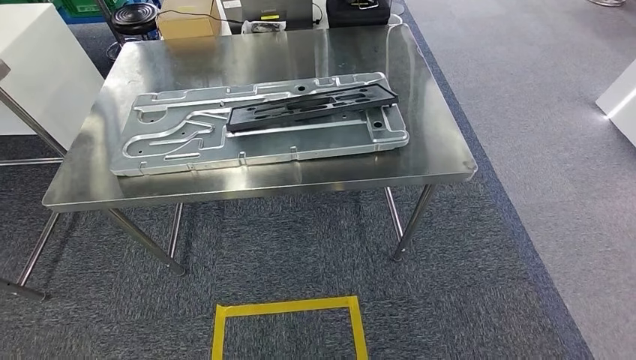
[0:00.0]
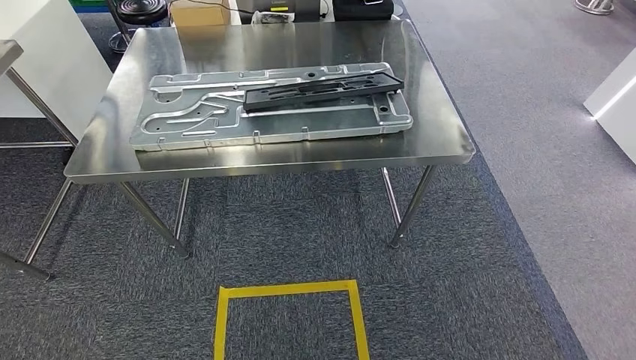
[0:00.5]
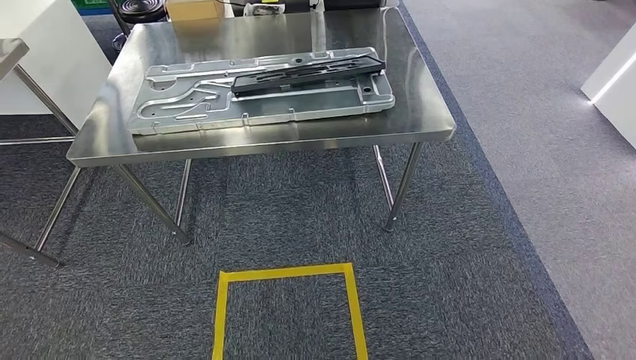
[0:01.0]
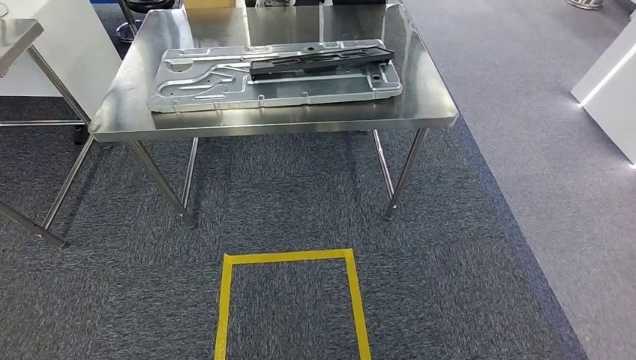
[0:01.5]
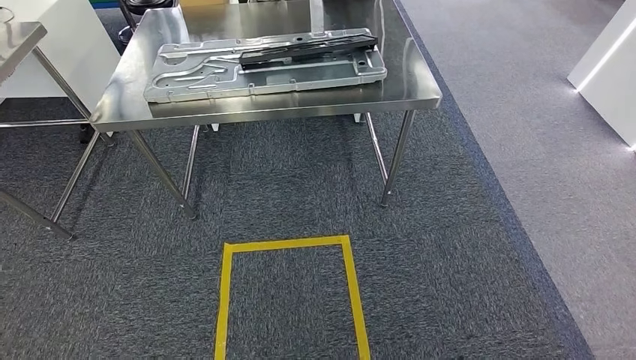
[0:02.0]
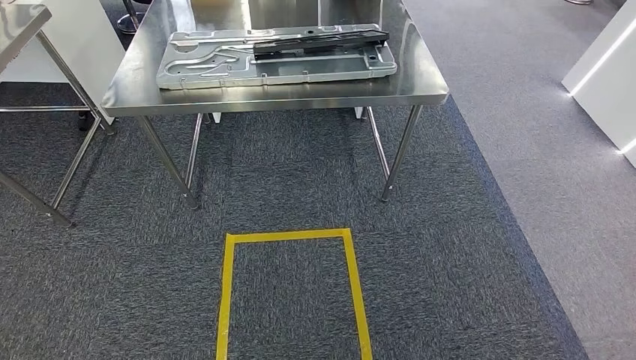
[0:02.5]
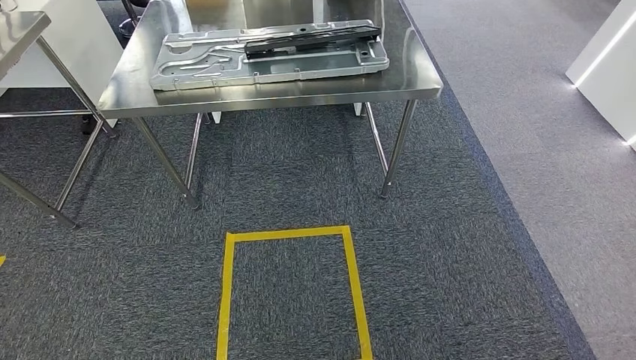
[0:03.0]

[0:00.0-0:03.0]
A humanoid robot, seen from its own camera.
Step, 0:00.0 to 0:03.0: Return to the initial position at the shelf.
0:01.5 to 0:03.0: The hands stay close to where they were, moving slightly.

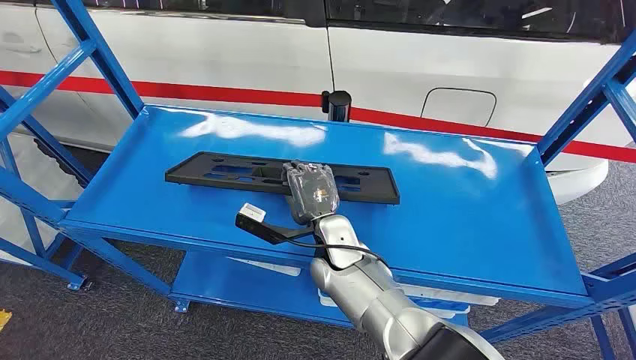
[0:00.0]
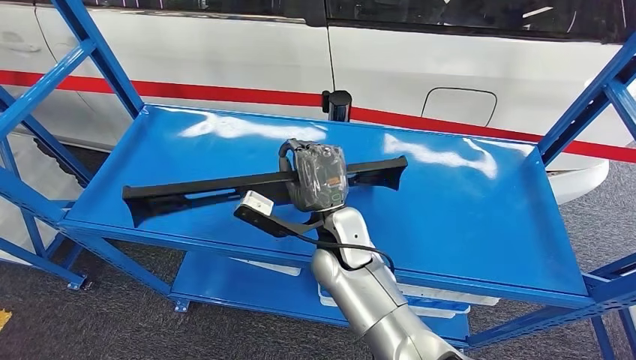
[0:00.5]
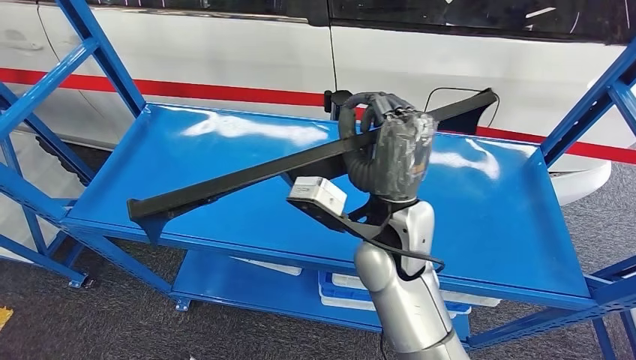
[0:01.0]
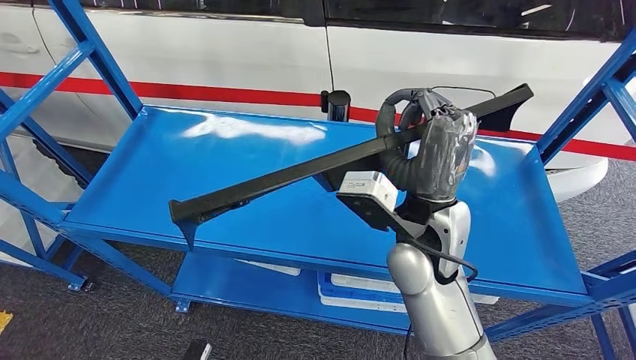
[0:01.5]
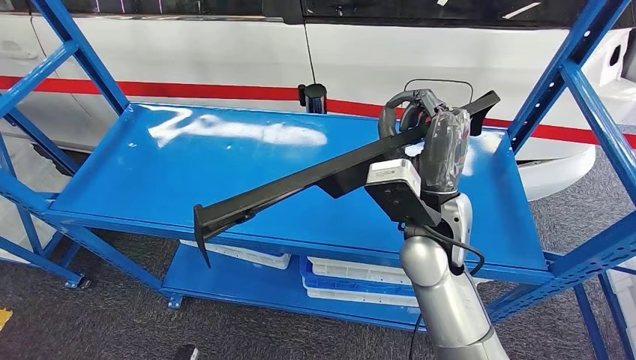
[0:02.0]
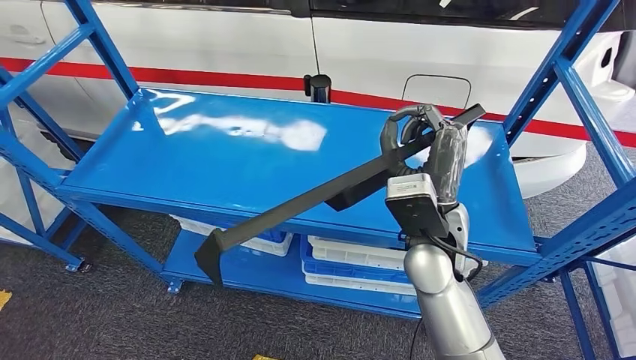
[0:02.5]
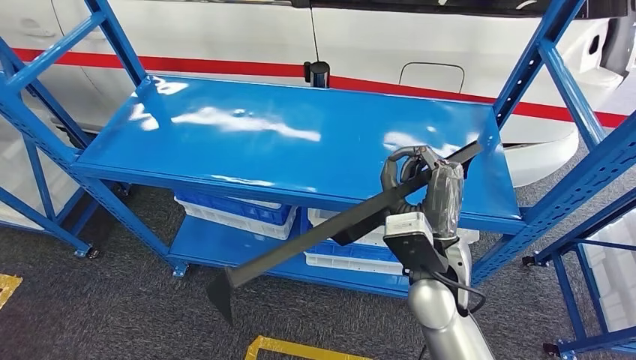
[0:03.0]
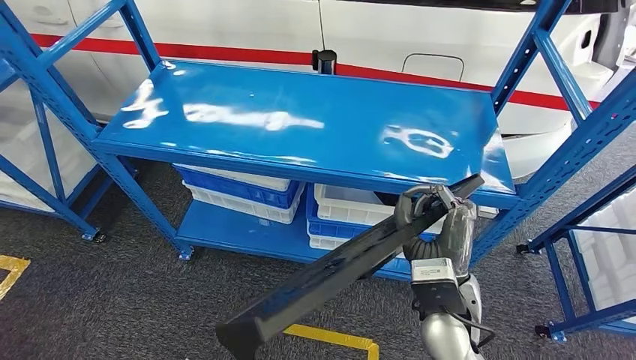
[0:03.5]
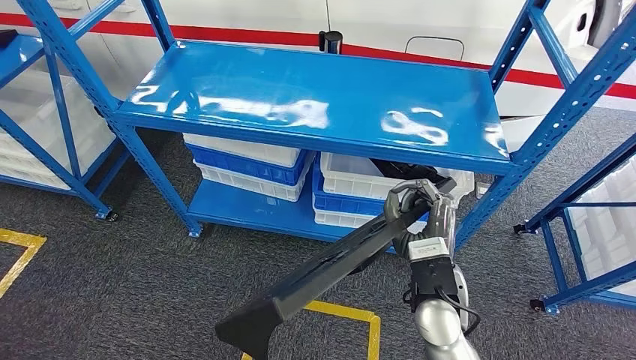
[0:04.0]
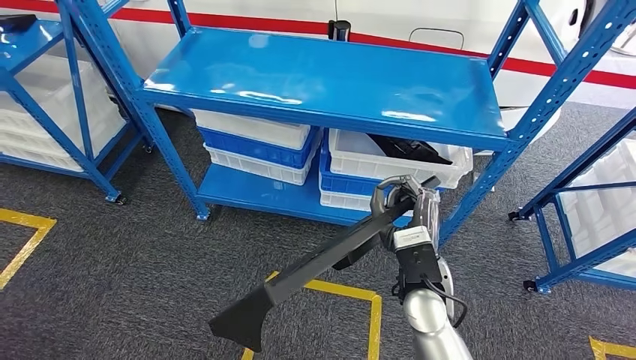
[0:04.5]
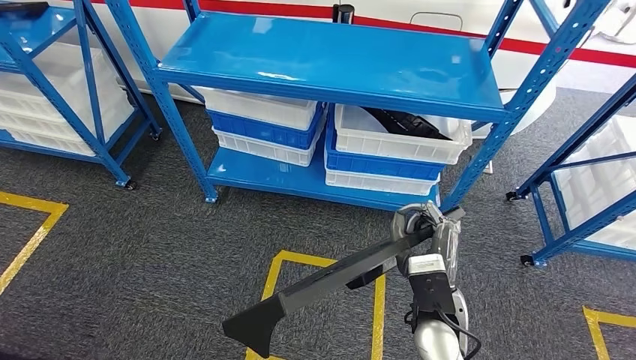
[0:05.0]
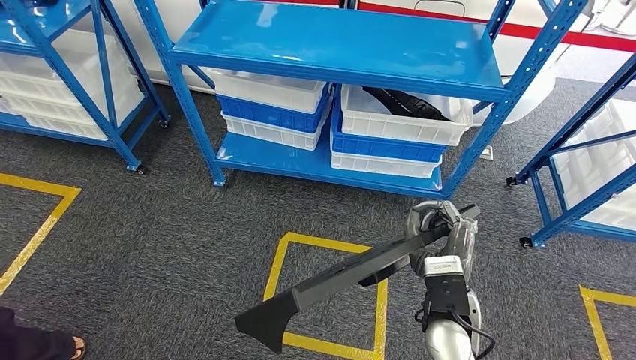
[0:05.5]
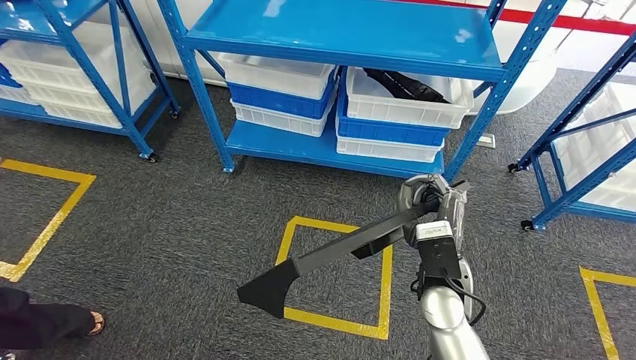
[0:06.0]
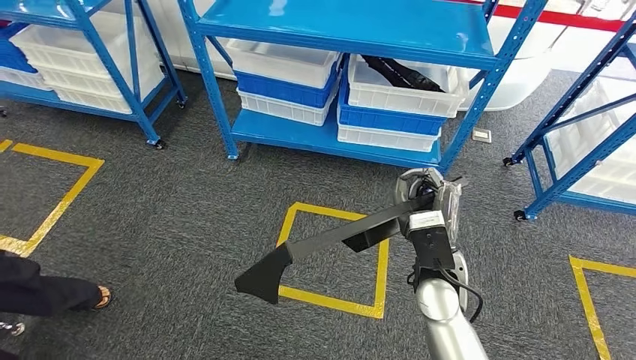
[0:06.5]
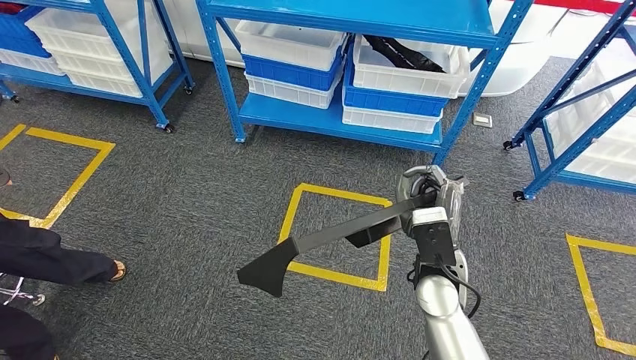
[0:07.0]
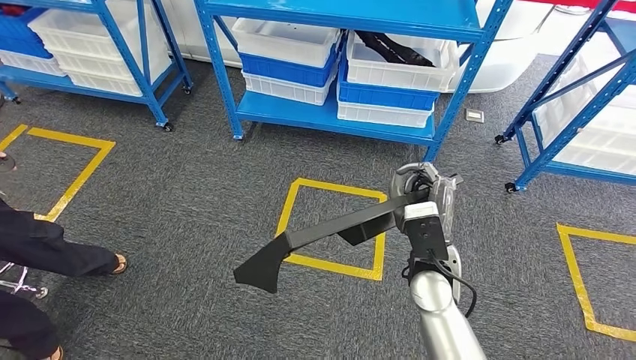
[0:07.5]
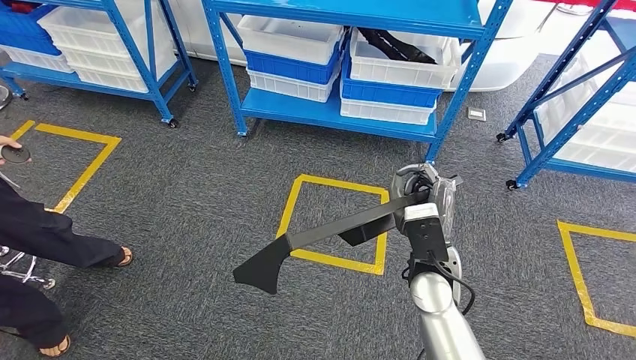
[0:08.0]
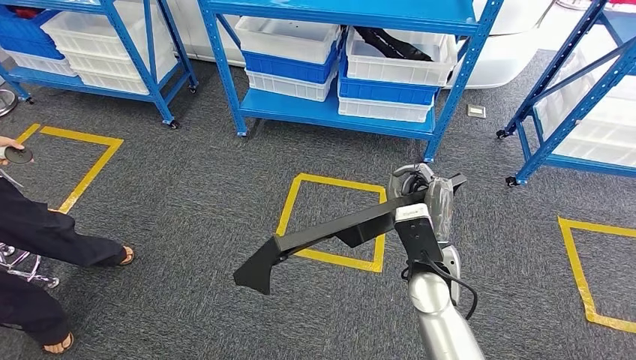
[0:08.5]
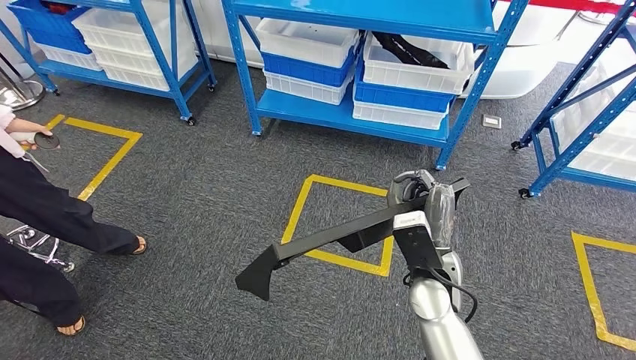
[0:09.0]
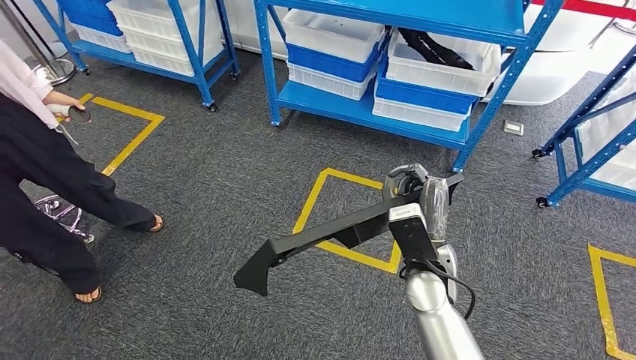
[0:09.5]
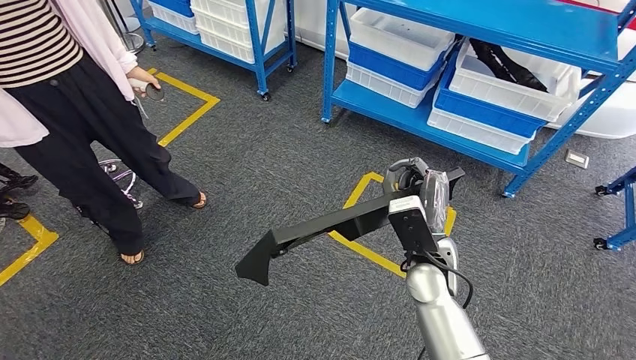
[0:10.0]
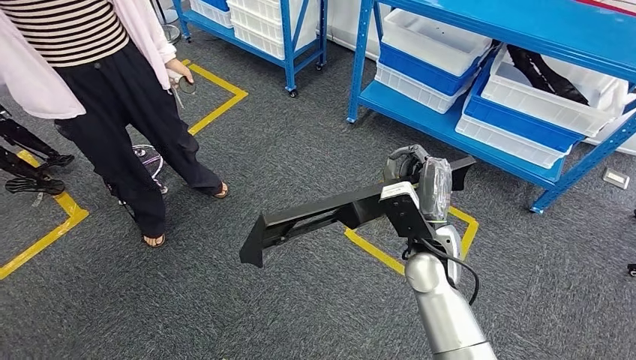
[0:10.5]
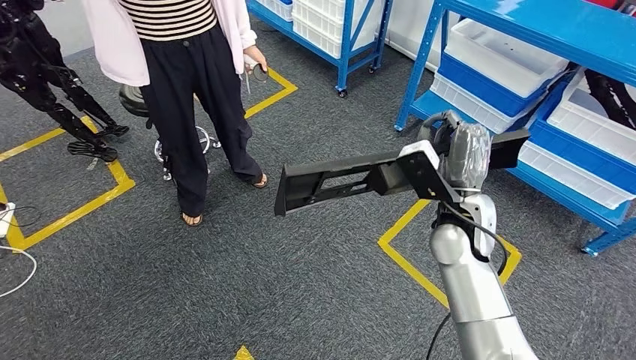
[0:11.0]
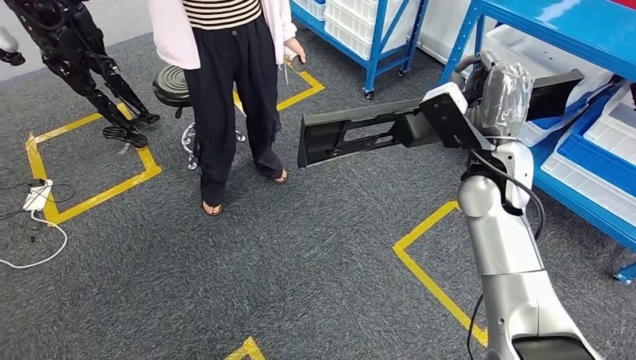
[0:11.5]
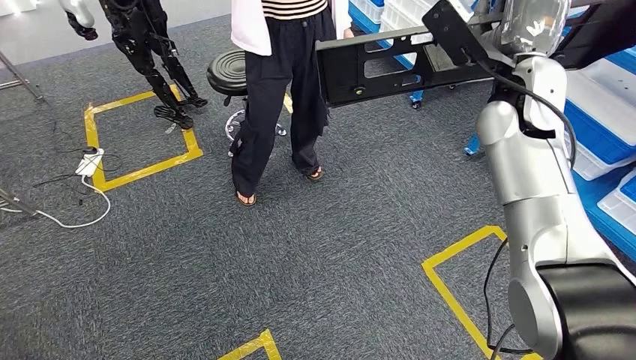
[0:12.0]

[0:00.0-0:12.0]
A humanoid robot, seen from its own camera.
Step, 0:00.0 to 0:05.0: Pick up the large material from the shelf.

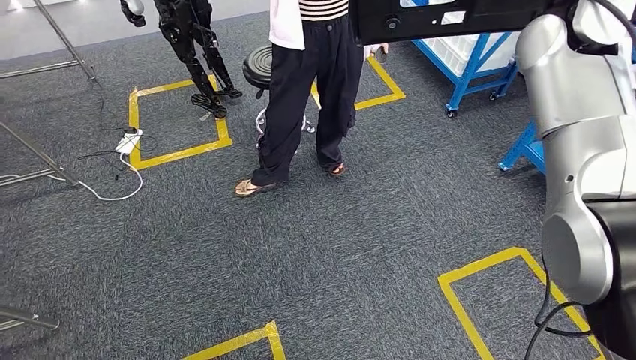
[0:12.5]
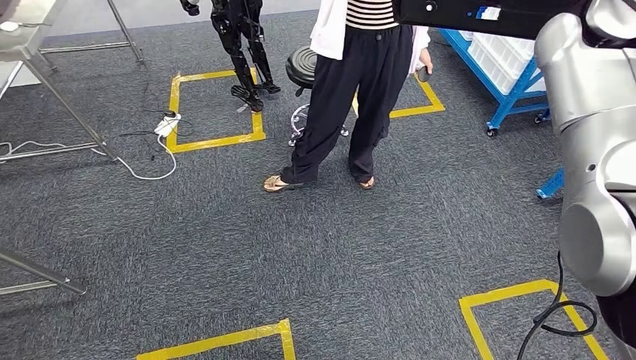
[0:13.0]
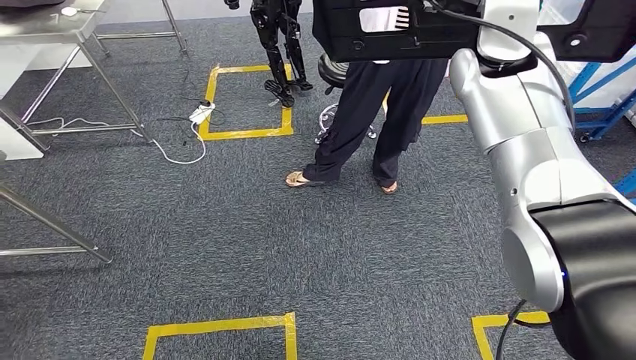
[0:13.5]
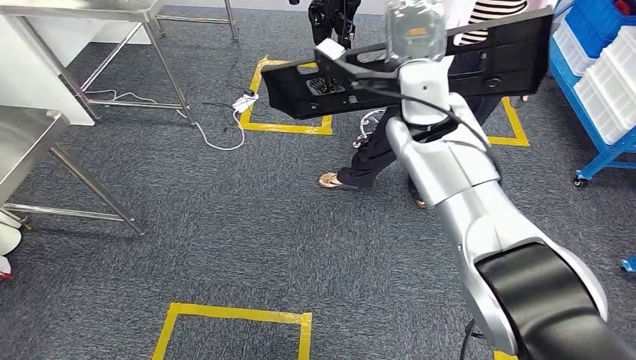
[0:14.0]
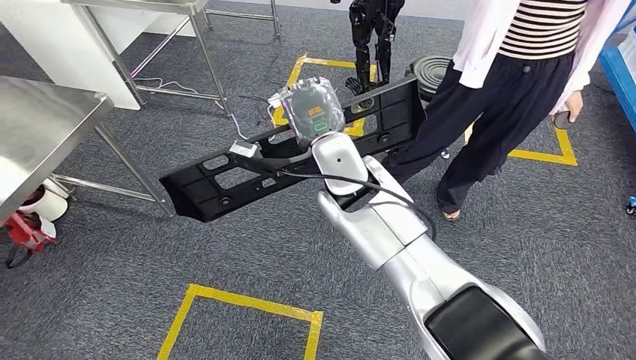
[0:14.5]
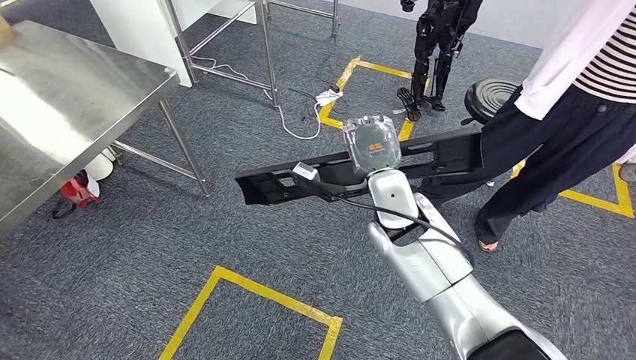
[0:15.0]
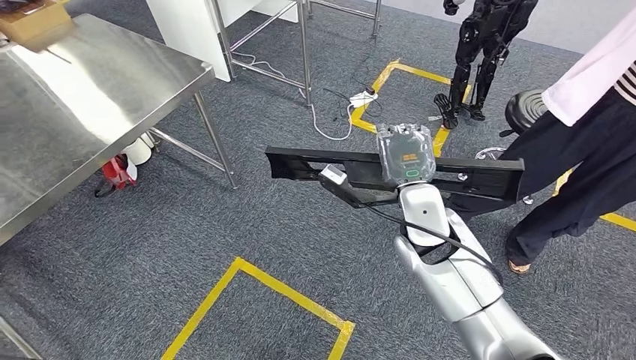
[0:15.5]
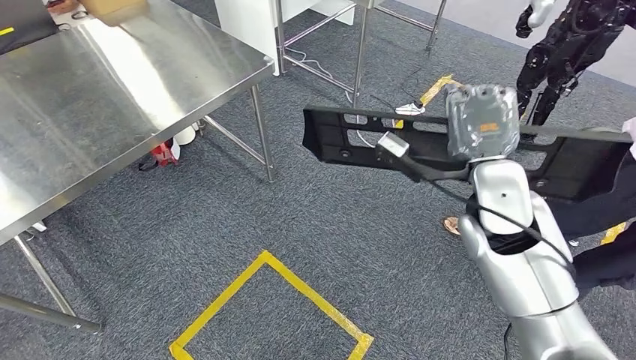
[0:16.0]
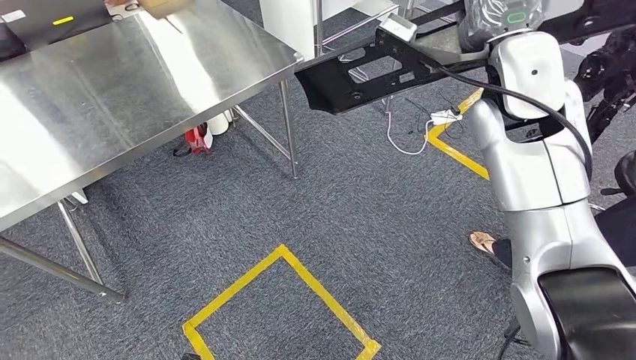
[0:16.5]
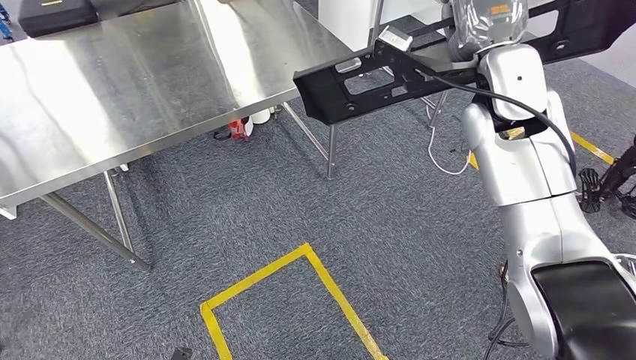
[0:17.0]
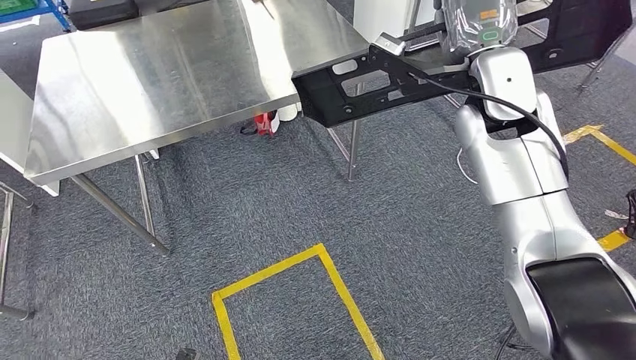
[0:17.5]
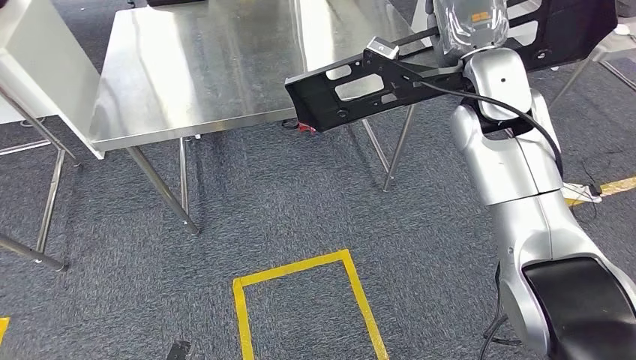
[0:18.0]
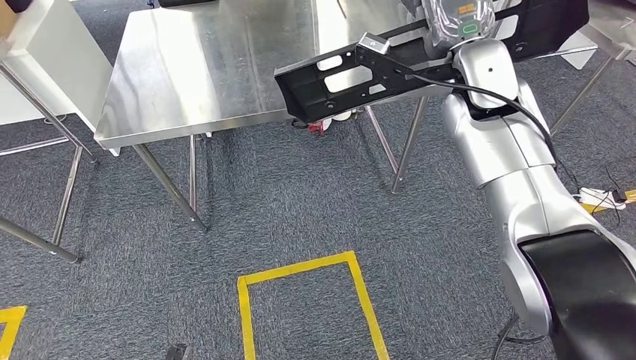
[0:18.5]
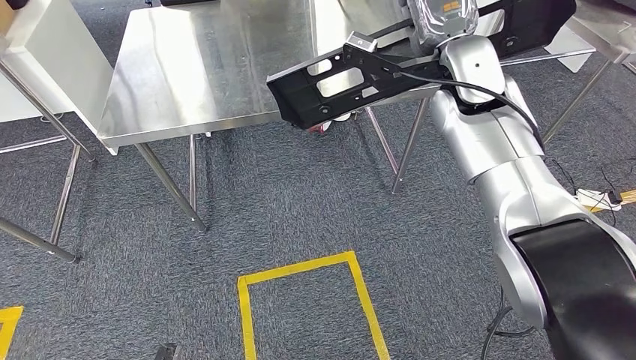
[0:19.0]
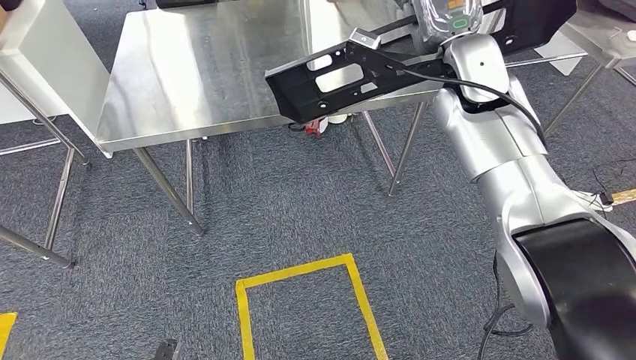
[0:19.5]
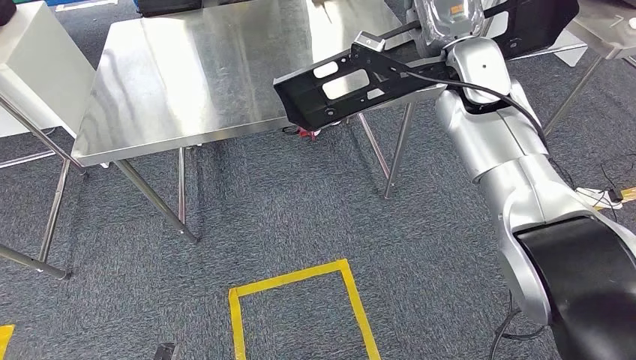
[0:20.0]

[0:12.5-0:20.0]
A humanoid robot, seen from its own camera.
Step, 0:12.5 to 0:18.5: Move the large material to the workbench.
